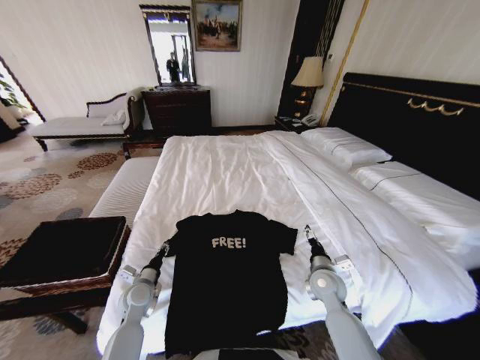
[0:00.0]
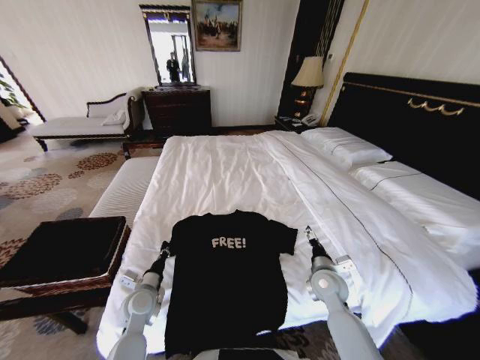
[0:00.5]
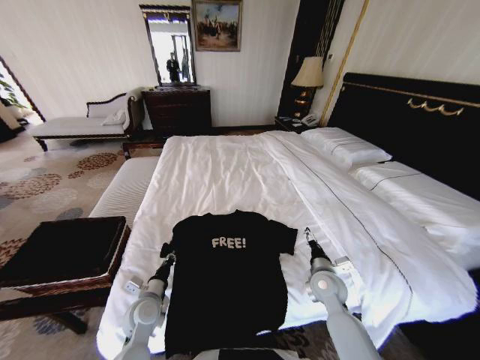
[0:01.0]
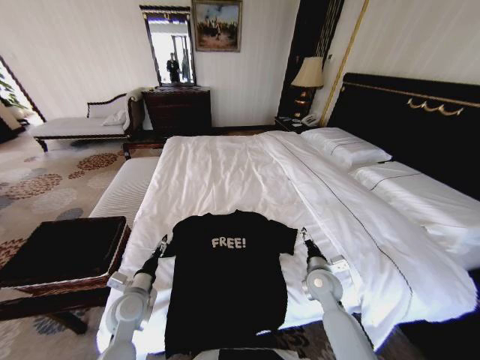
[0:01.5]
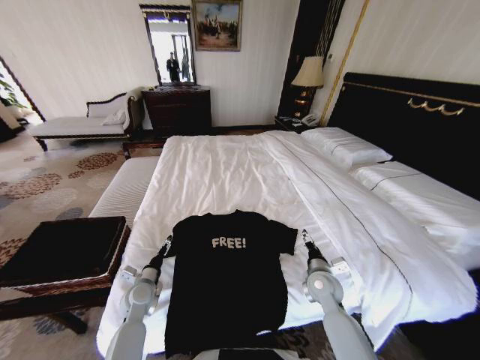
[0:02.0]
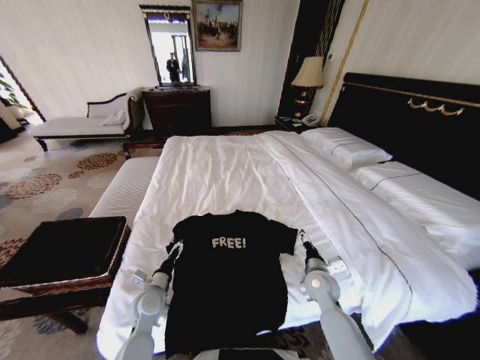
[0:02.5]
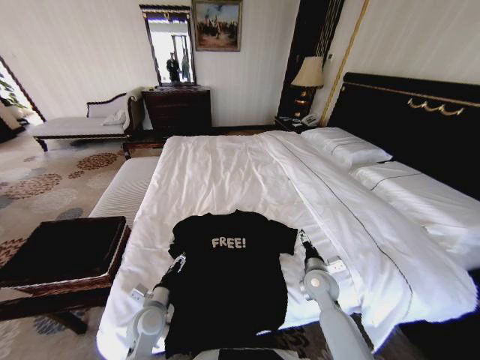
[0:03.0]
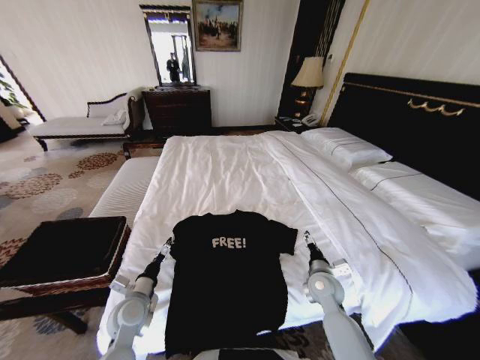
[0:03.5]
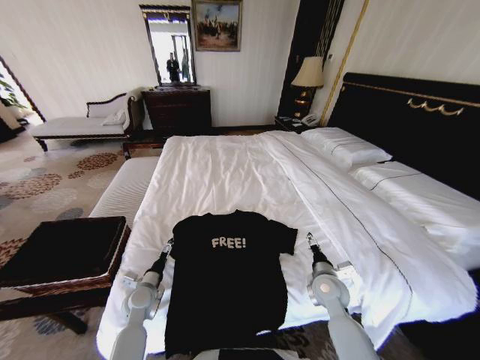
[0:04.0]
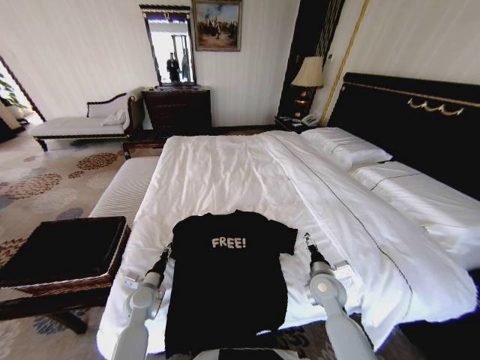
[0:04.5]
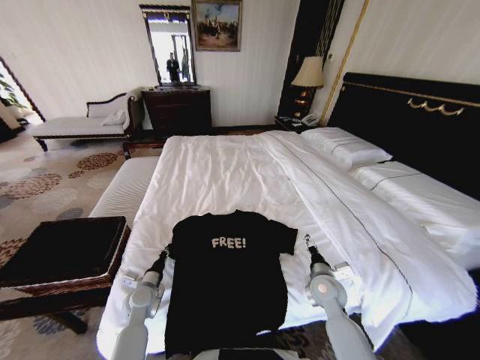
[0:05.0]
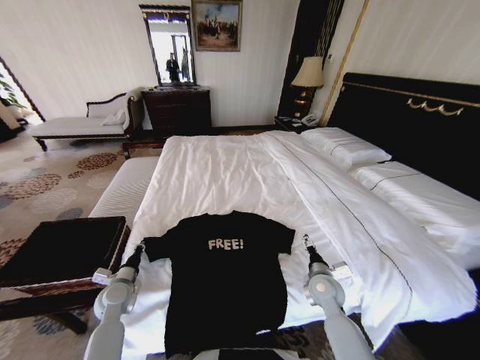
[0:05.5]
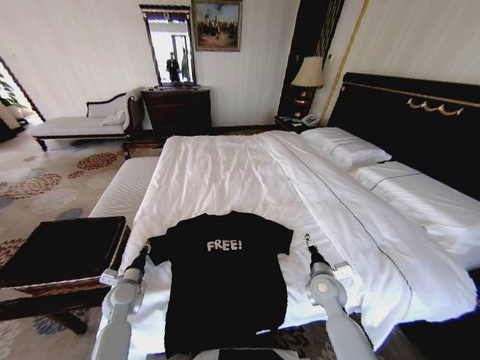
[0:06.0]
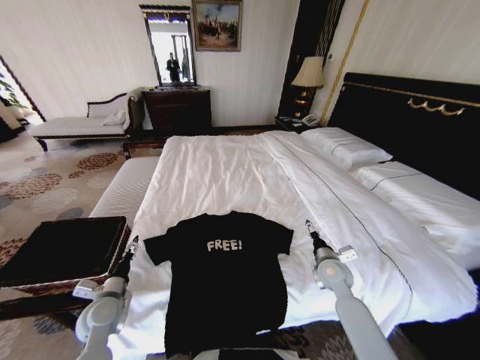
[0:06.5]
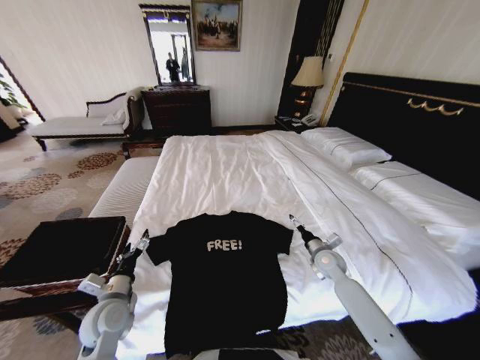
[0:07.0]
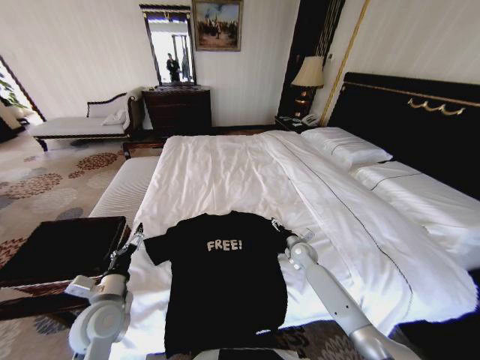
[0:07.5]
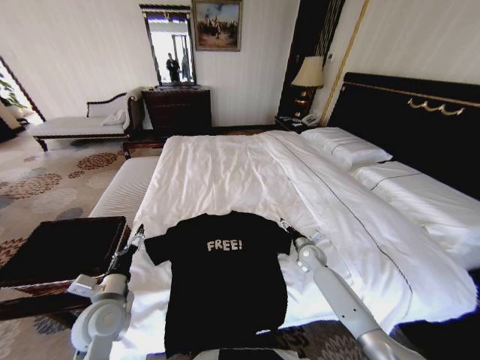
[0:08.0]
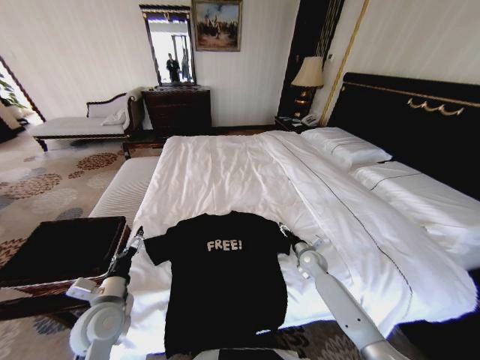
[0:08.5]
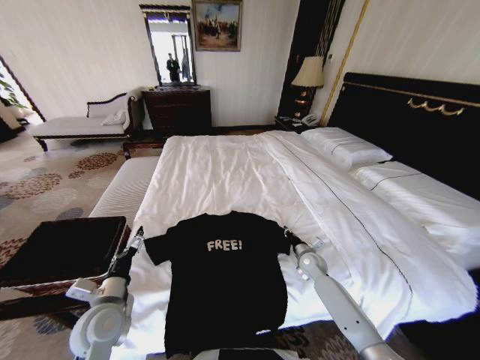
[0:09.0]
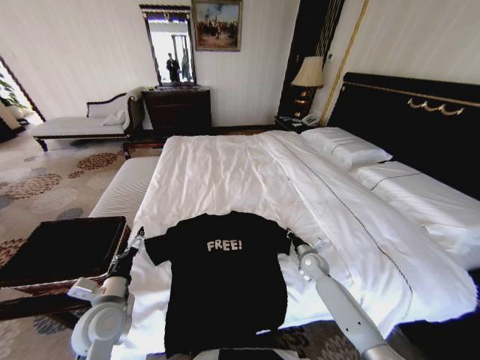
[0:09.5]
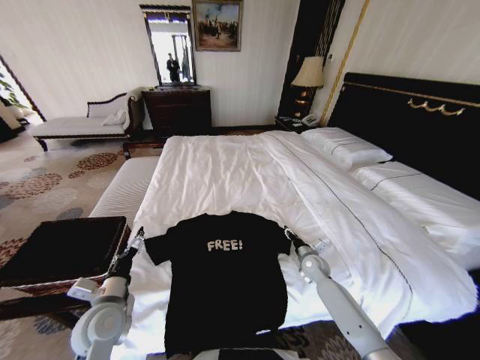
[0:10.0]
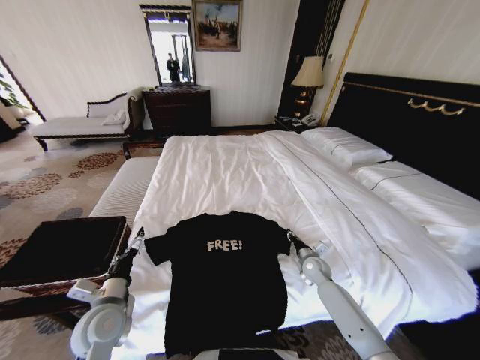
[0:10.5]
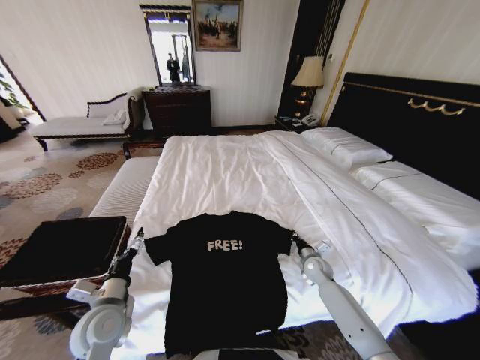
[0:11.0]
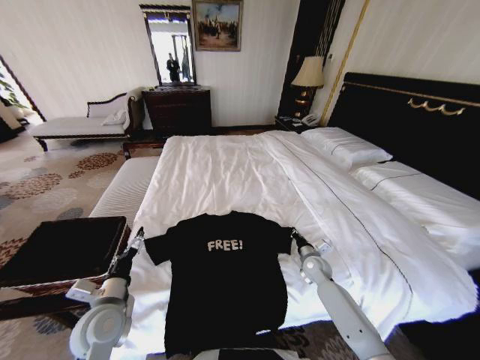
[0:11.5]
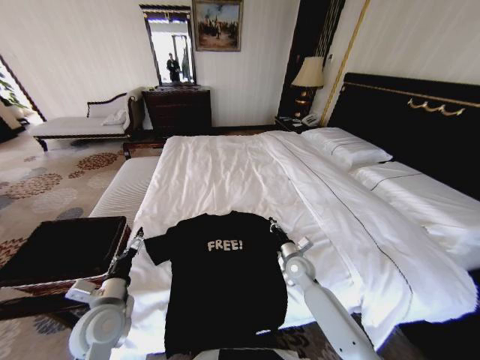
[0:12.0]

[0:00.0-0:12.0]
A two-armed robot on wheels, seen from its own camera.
Task of the whole recording: Fold the clothes on the bed and place them into the basket.
0:00.0 to 0:02.0: The left gripper opens.
0:04.0 to 0:06.0: The left gripper moves to the left, approximately 5 cm, and closes its fingers.
0:06.0 to 0:08.0: The left gripper goes some 15 cm upward and backward, and opens. The right gripper shifts roughly 15 cm forward and downward.
0:08.0 to 0:10.0: The right gripper closes.
0:10.0 to 0:12.0: The right gripper shifts about 10 cm to the left, and closes its fingers.

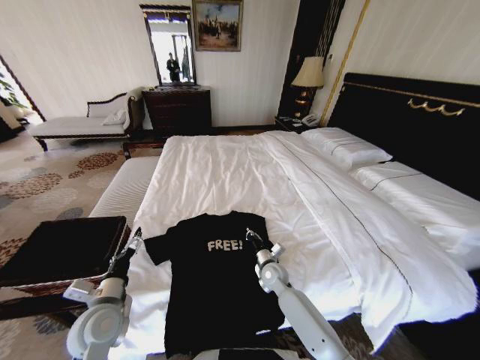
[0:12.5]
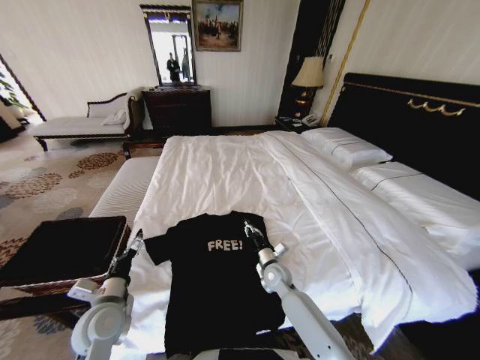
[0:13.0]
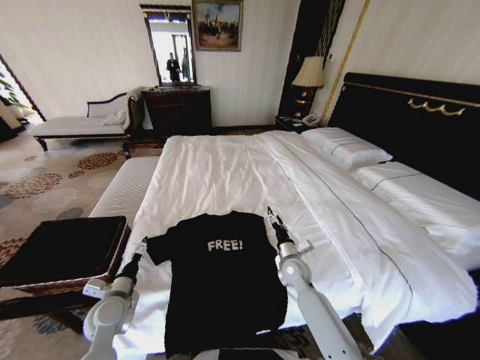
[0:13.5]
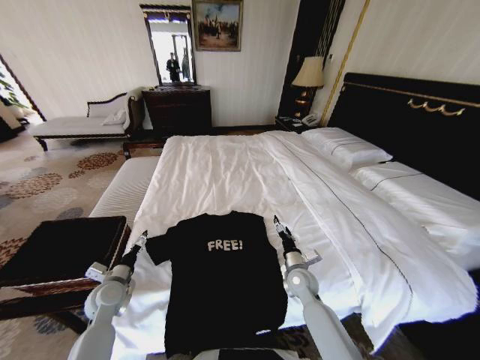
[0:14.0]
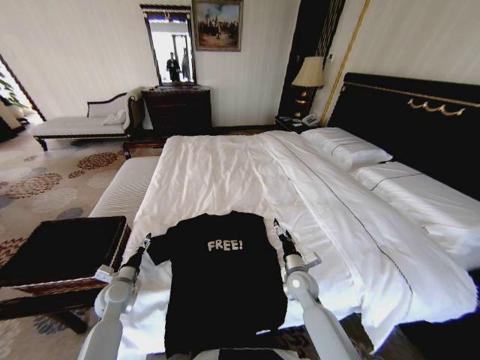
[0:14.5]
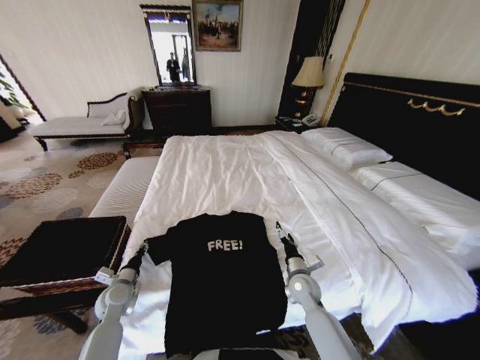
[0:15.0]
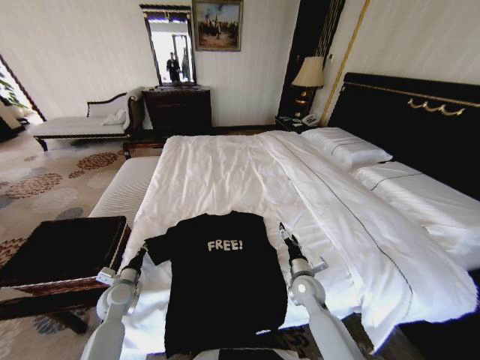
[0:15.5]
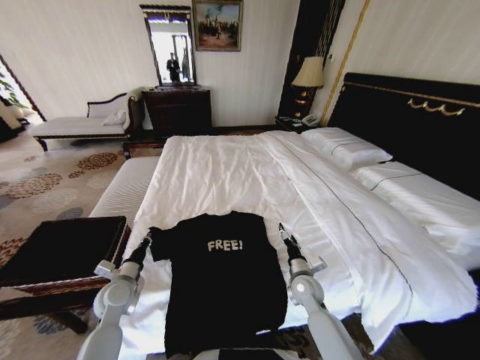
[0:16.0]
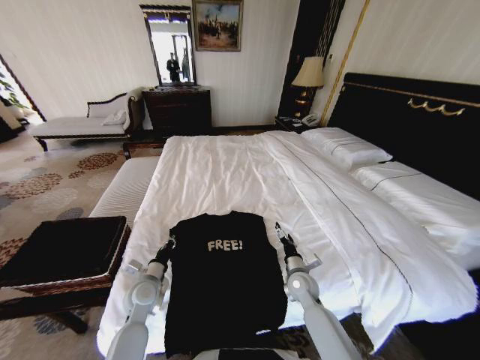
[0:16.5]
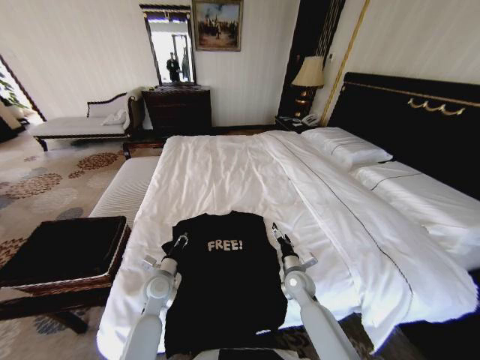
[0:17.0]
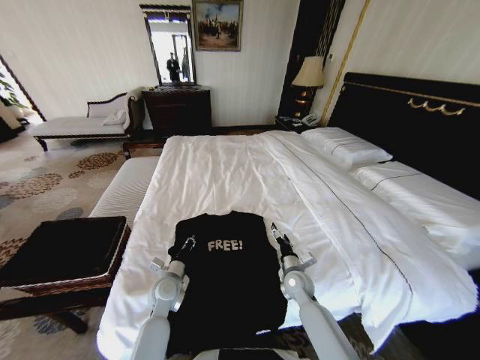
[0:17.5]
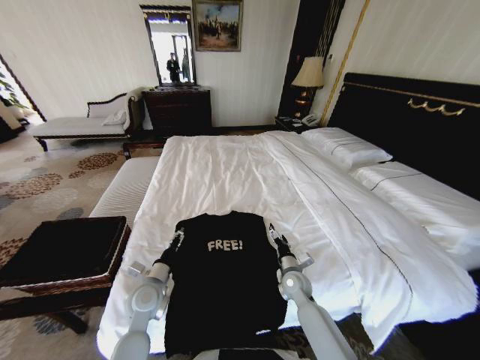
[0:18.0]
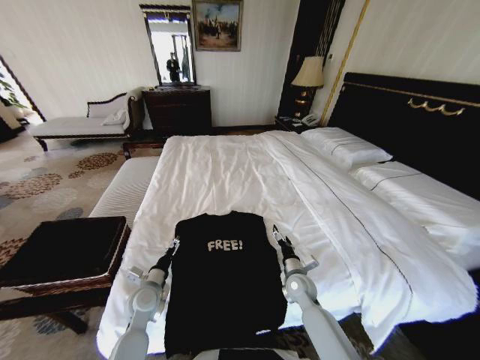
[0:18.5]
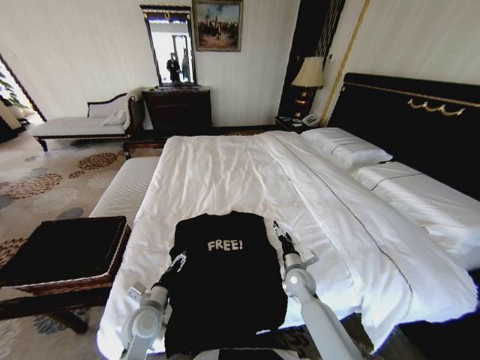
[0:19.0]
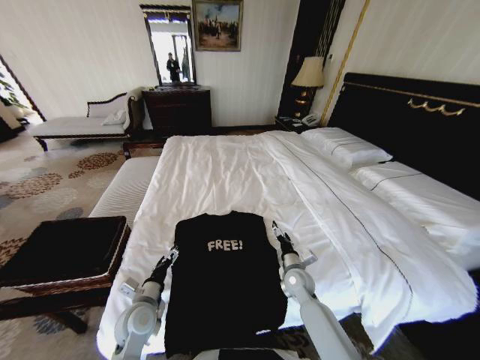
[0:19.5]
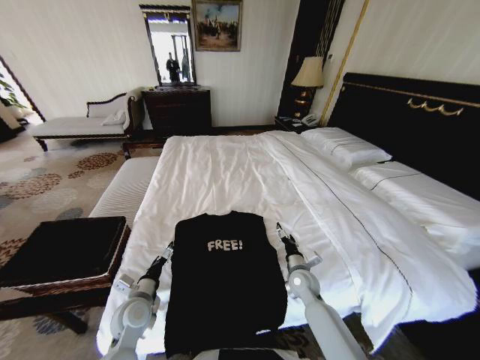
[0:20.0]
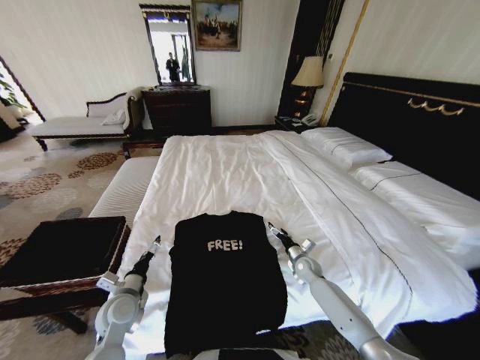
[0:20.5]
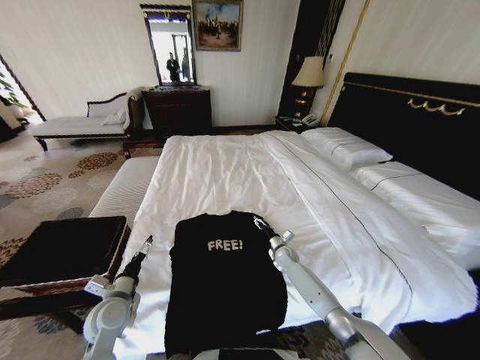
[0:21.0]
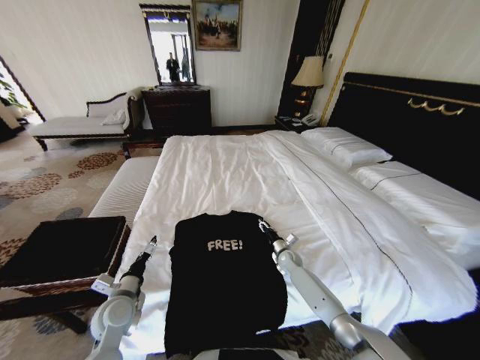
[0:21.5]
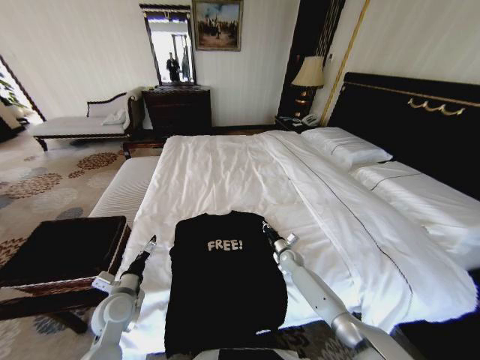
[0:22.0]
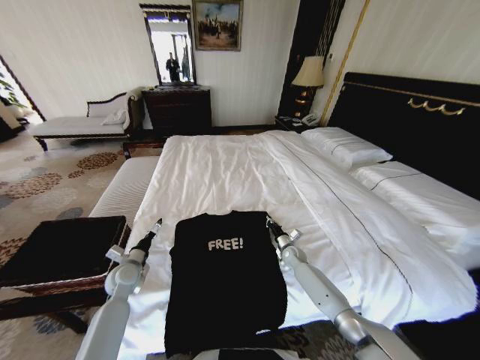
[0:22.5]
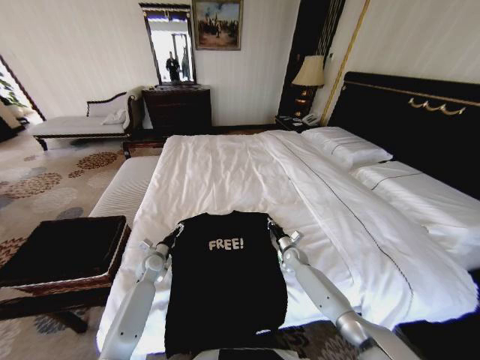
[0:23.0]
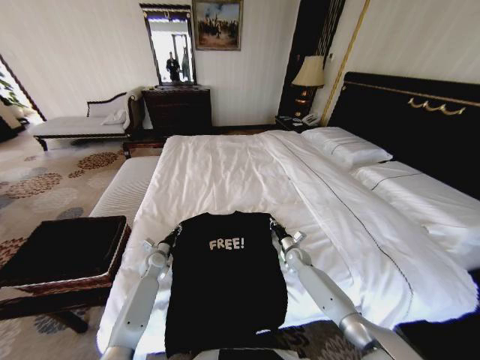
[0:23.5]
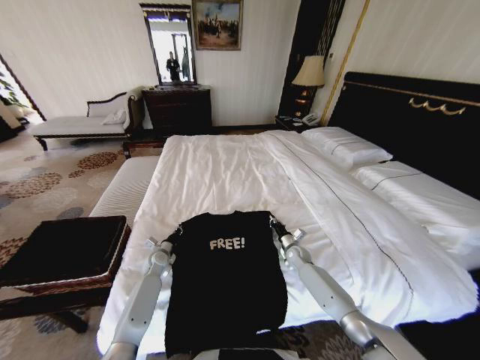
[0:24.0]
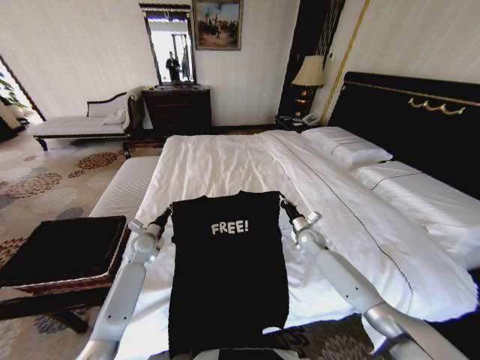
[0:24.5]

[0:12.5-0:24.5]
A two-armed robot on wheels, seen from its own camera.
Task of the whole recording: Fold the clothes on the bed and place them into the basket.
0:12.5 to 0:14.5: The right gripper goes approximately 5 cm to the right, and opens. The left gripper heads downward, forward and to the left, covering some 15 cm.
0:14.5 to 0:16.5: The left gripper moves to the right, approximately 10 cm, and closes up.
0:16.5 to 0:18.5: The left gripper opens.
0:18.5 to 0:20.5: The right gripper moves forward and to the right, some 10 cm; the left gripper moves roughly 5 cm.
0:20.5 to 0:22.5: The right gripper is displaced forward by about 5 cm, and closes its fingers, while the left gripper is displaced forward by approximately 10 cm.
0:22.5 to 0:24.5: The left gripper goes approximately 10 cm forward, reaches about 10 cm downward, then returns, and closes; the right gripper travels upward by roughly 10 cm.

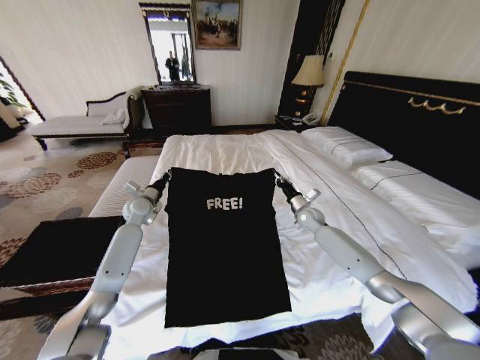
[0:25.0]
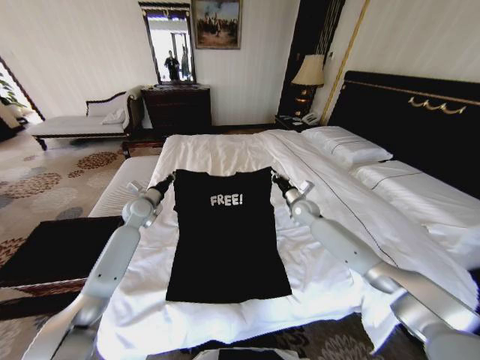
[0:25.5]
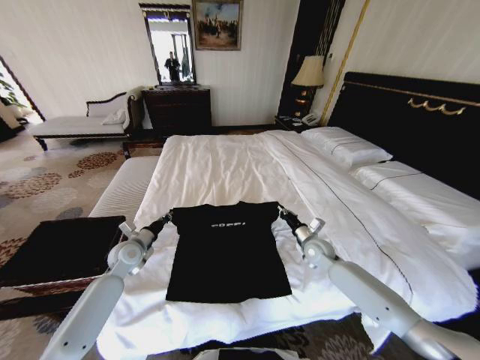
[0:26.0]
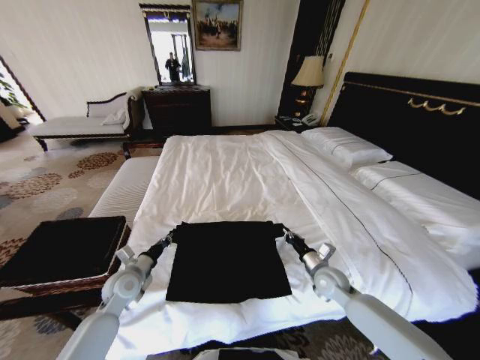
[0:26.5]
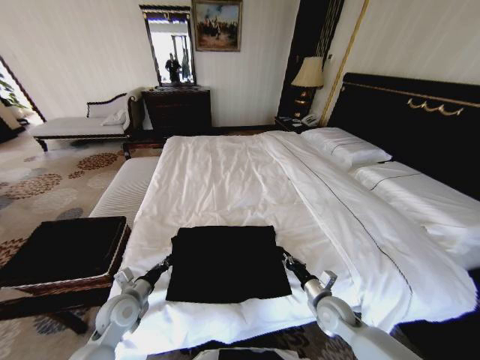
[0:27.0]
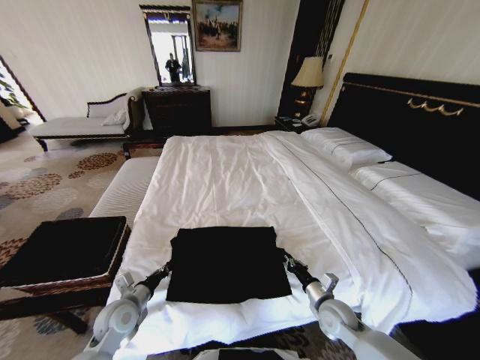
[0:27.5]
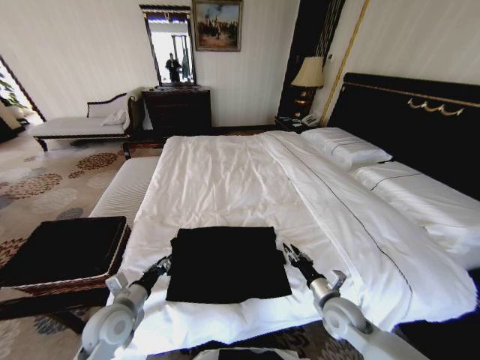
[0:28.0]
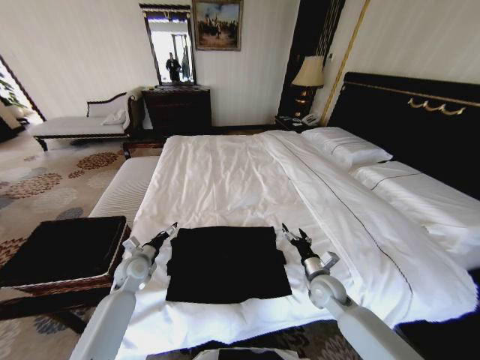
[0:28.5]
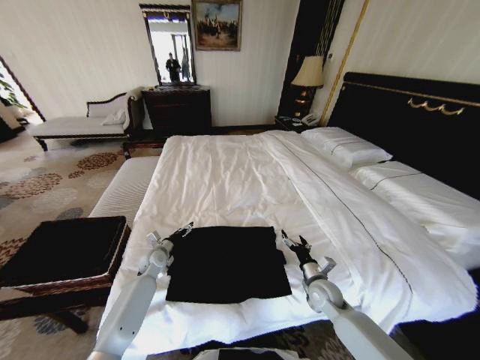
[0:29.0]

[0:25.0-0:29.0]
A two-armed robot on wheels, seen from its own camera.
Task of the whole recording: Fold the clothes on the bed and place them into the basket.
0:25.0 to 0:27.0: The left gripper shifts roughly 30 cm backward and downward. Meanwhile the right gripper goes roughly 30 cm backward.
0:27.0 to 0:29.0: The left gripper moves forward, roughly 15 cm, and opens its fingers. Meanwhile the right gripper opens its fingers.
